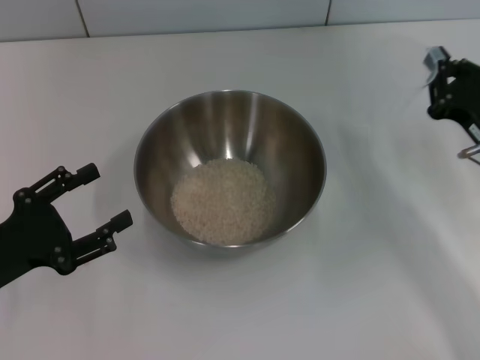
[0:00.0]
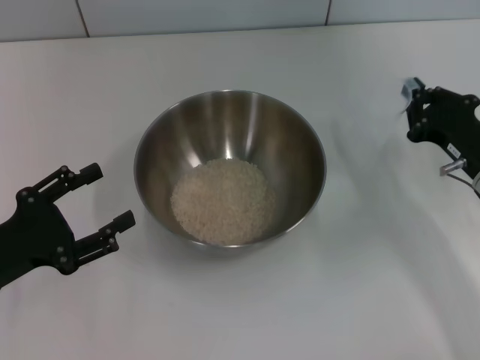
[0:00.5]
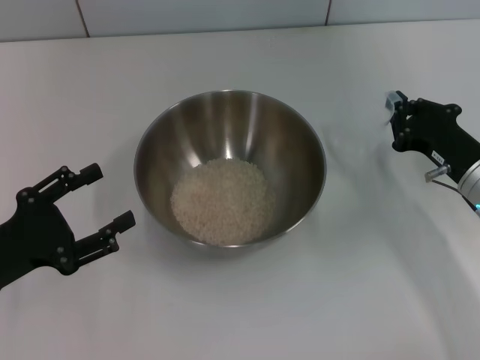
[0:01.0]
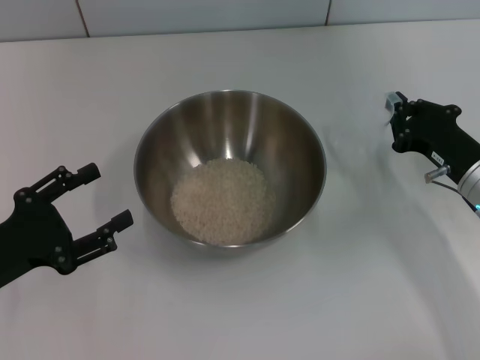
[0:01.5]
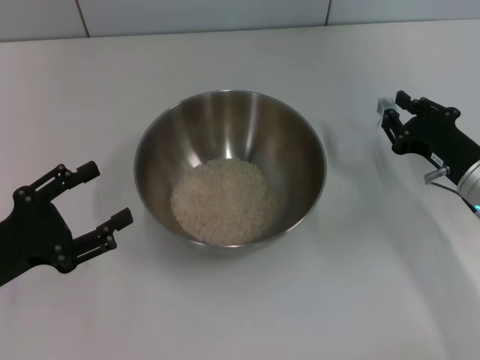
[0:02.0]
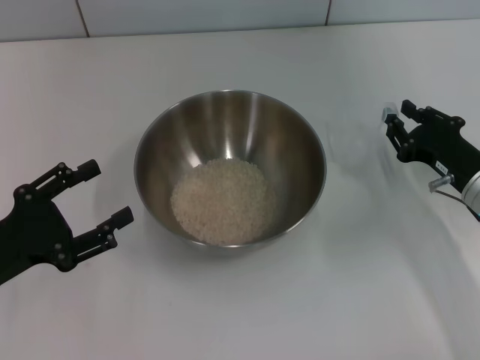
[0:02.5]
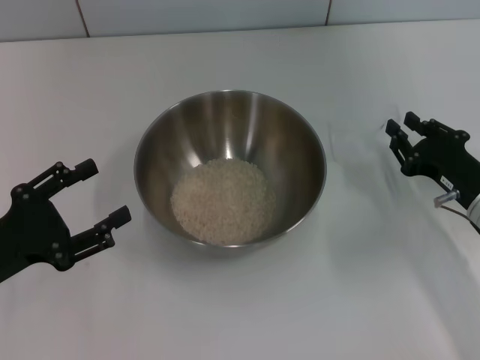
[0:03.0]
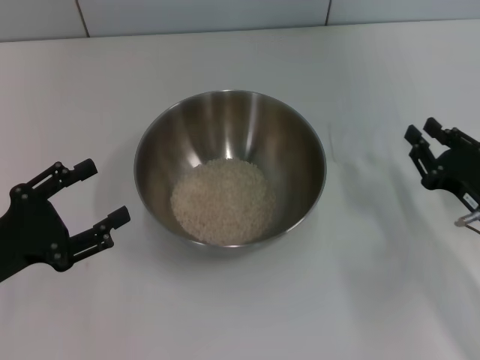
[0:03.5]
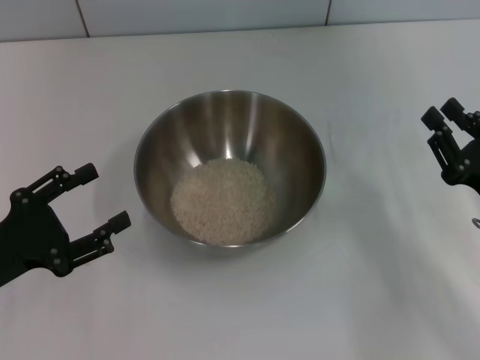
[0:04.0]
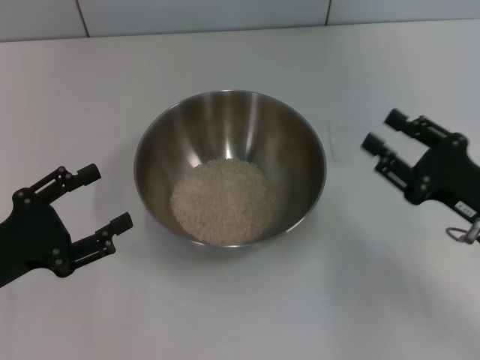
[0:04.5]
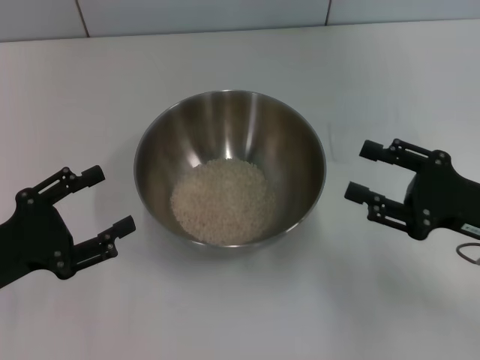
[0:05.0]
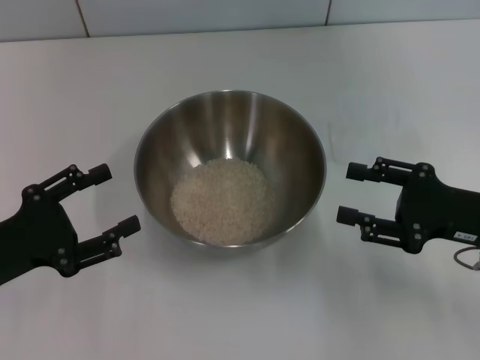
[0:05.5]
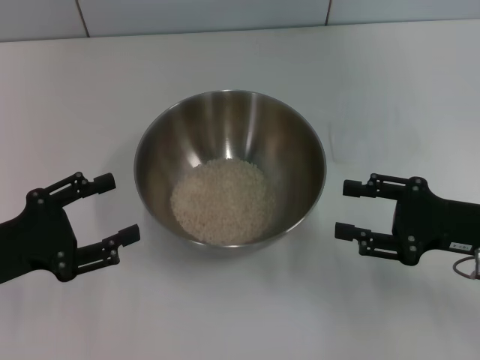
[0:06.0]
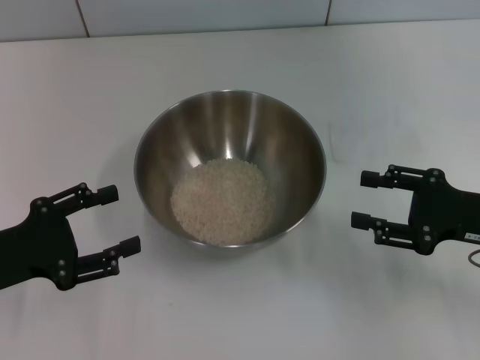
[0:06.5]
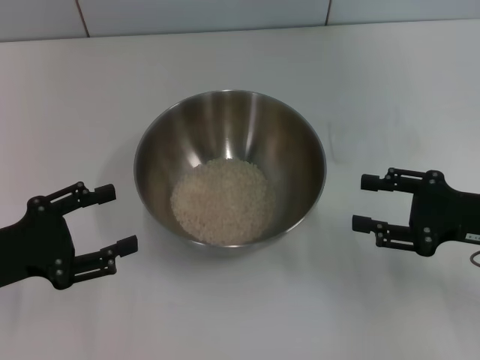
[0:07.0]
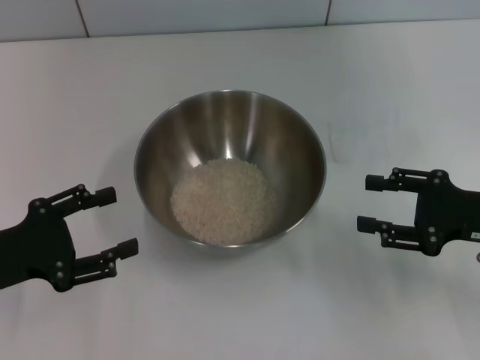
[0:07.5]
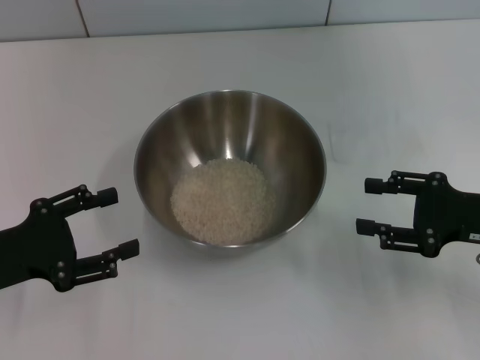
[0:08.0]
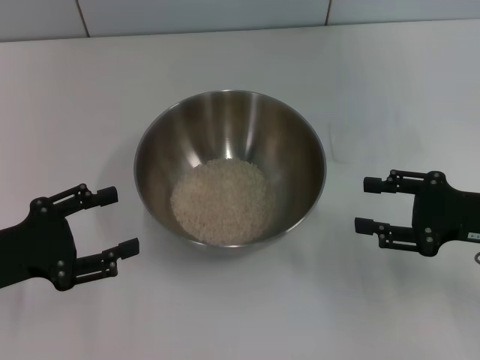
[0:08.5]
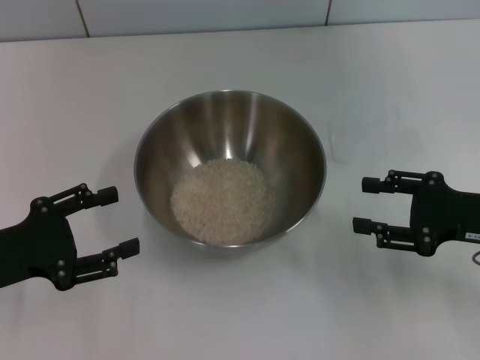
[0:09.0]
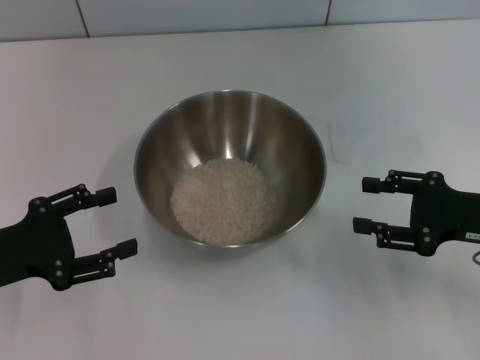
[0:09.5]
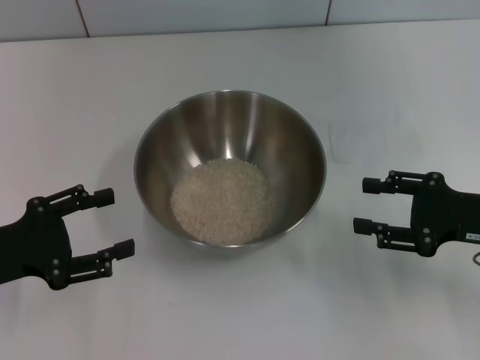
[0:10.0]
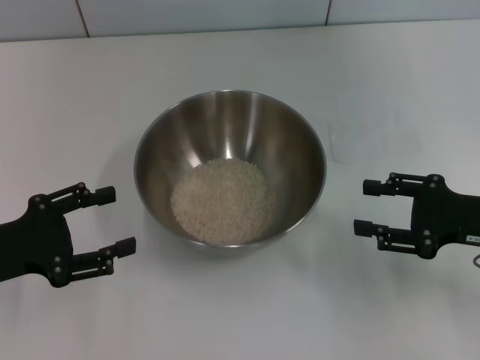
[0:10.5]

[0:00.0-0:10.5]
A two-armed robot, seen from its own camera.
Task of the whole recording: Place the bowl in the middle of the table with one hand and pour the rice from the grain cup into it with the other hand.
Step, 0:00.0 to 0:05.5: Place the cup on the table with the right gripper.
0:00.0 to 0:02.0: There are only small adjustments of the grippers.
0:02.0 to 0:04.0: The right gripper shifts about 10 cm backward.
0:04.0 to 0:06.5: The right gripper opens.
0:06.5 to 0:08.5: The grippers stay close to where they were, moving slightly.
0:08.5 to 0:10.5: The two grippers keep their place.

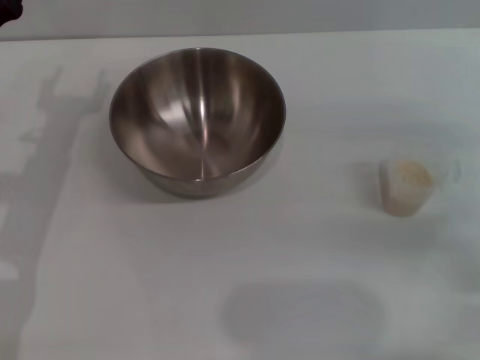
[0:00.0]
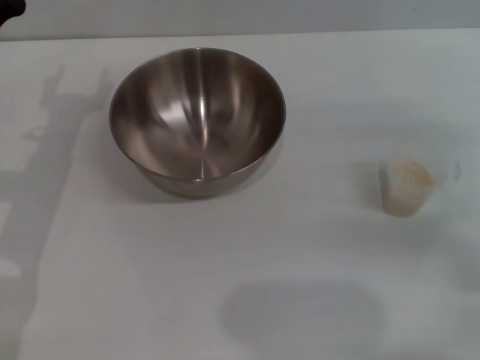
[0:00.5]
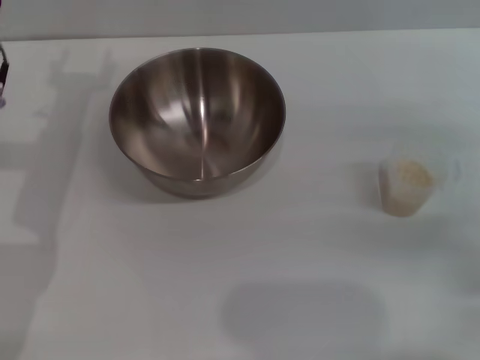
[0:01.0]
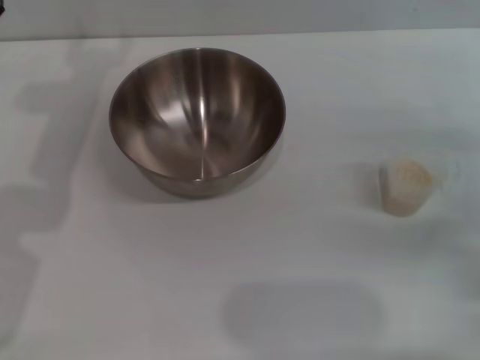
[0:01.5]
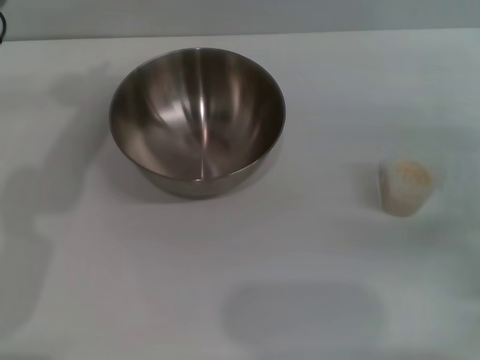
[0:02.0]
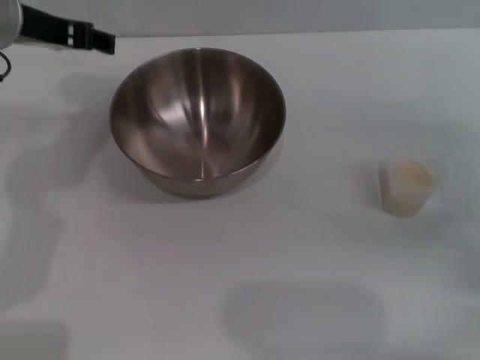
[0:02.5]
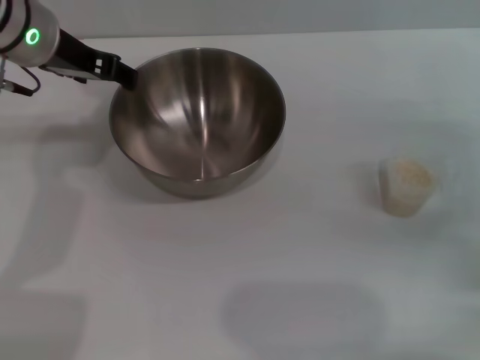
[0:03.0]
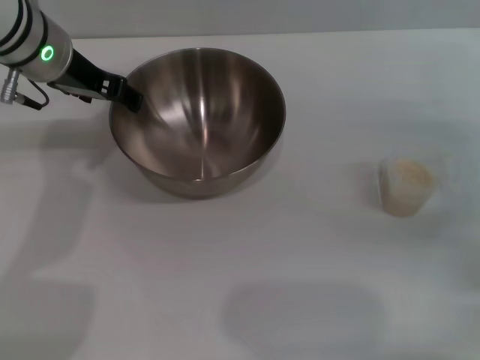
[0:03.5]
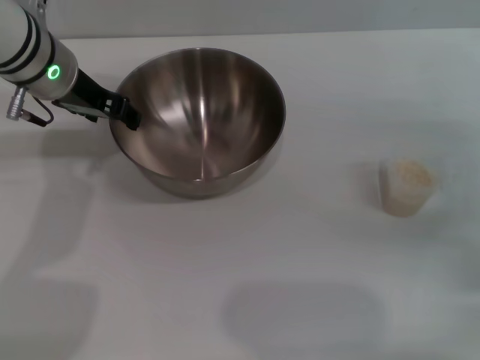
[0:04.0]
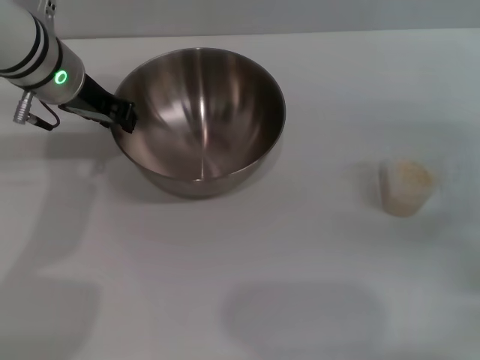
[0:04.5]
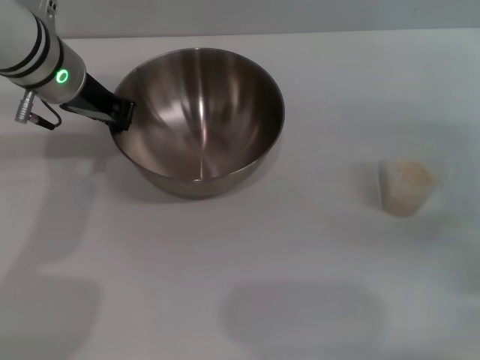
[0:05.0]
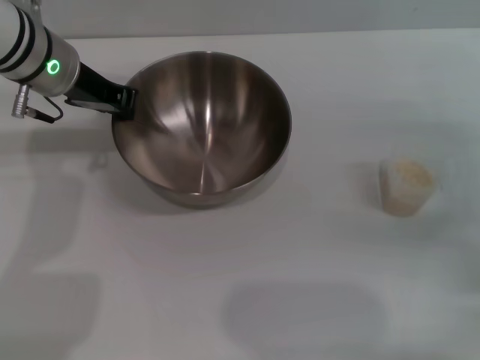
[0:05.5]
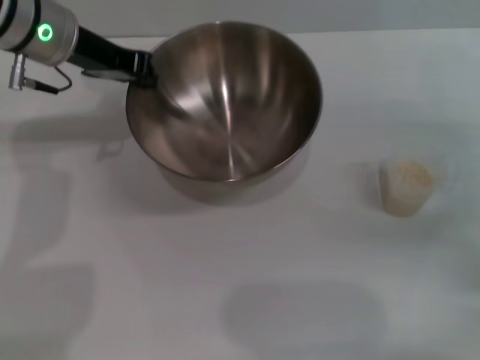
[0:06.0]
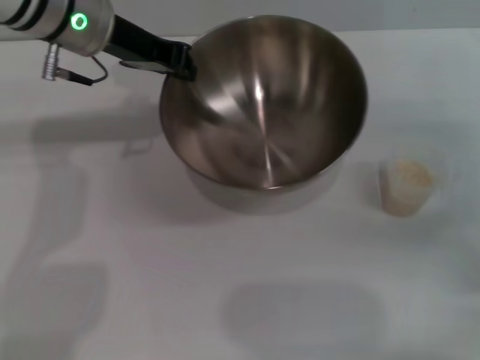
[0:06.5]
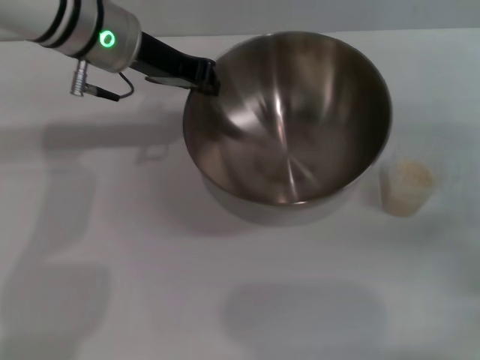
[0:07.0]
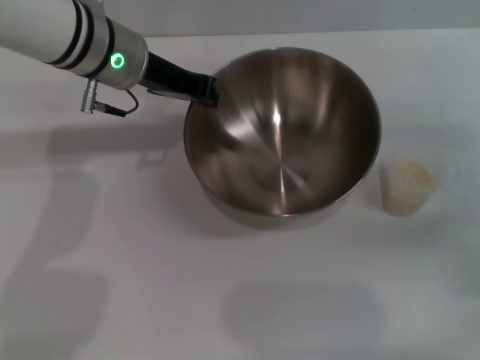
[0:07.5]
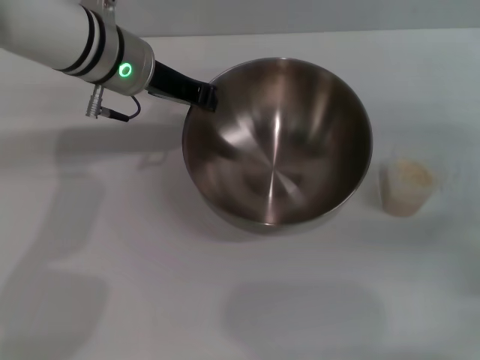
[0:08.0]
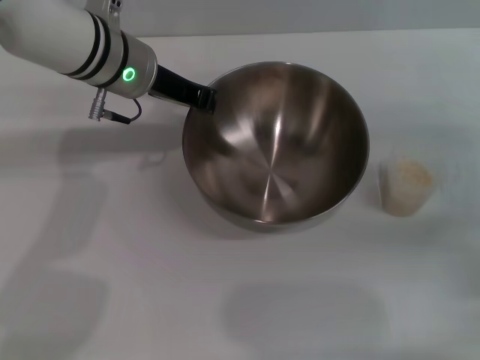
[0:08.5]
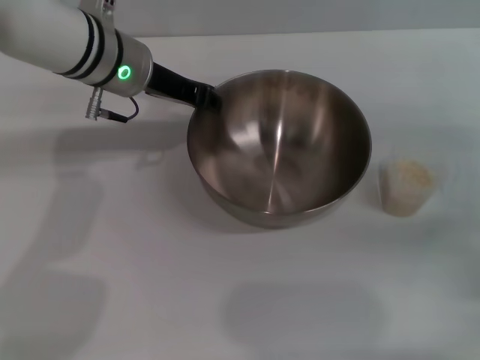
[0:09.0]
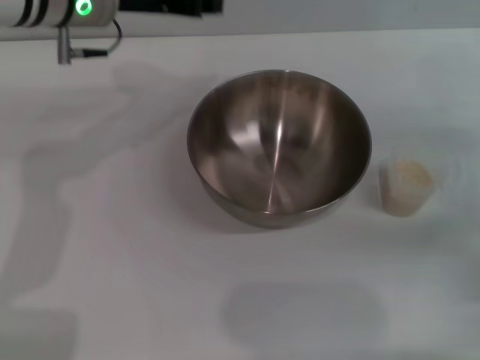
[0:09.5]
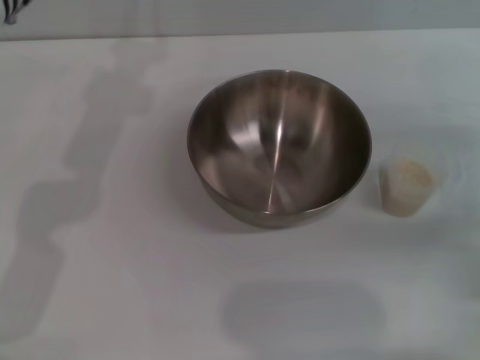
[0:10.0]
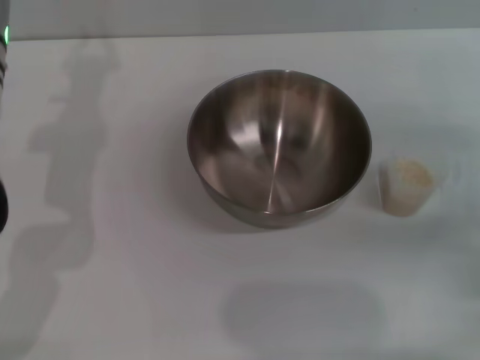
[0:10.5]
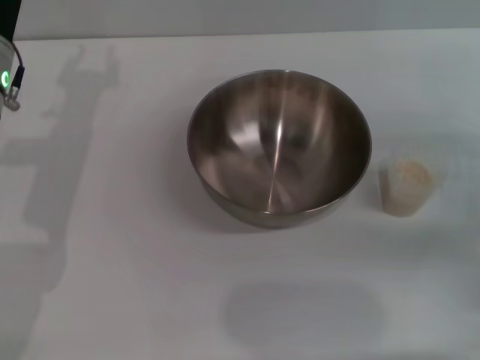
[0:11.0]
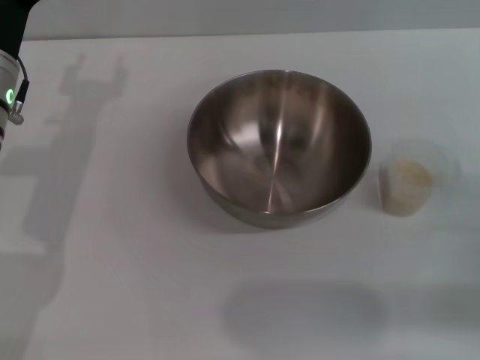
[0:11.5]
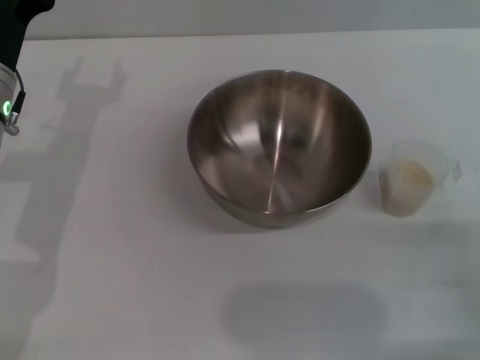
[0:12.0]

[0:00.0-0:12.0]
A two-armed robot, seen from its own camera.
Task of the whole recording: Place the bowl in the middle of the table with one hand and pour the rice from the grain cup into it with the other hand.
Step, 0:00.0 to 0:06.0: Pick up the bowl with the left gripper.
Step, 0:06.5 to 0:09.0: Place the bowl in the center of view with the left gripper.
0:02.0 to 0:04.0: The left gripper is displaced downward by some 5 cm.
0:04.0 to 0:06.0: The left gripper closes.
0:06.0 to 0:08.0: The left gripper heads to the right, covering some 5 cm.
0:08.0 to 0:10.0: The left gripper is displaced to the left and upward by some 10 cm.
0:10.0 to 0:12.0: The left gripper is displaced downward and backward by approximately 10 cm, and opens up.

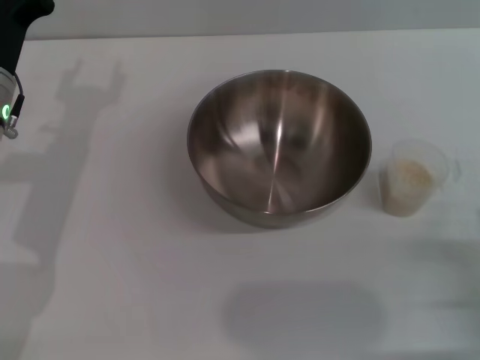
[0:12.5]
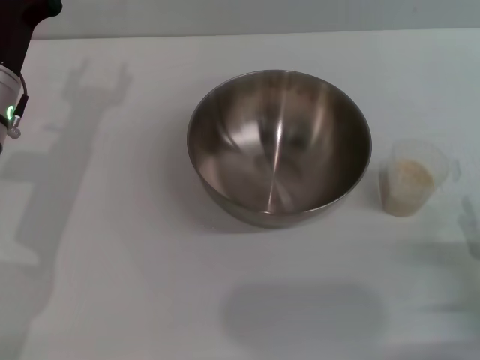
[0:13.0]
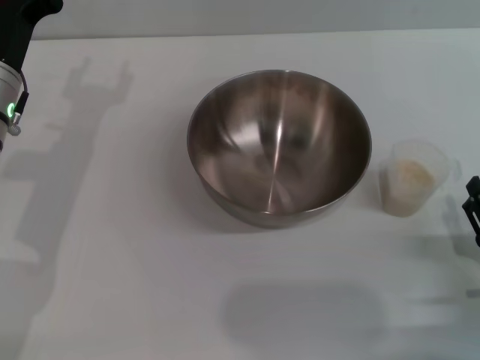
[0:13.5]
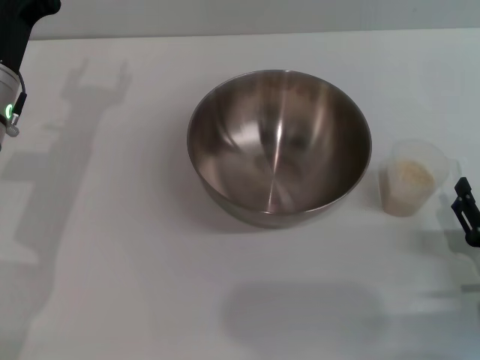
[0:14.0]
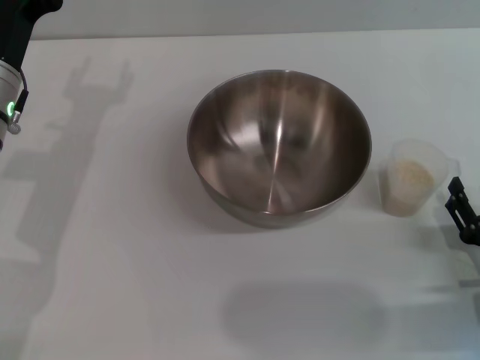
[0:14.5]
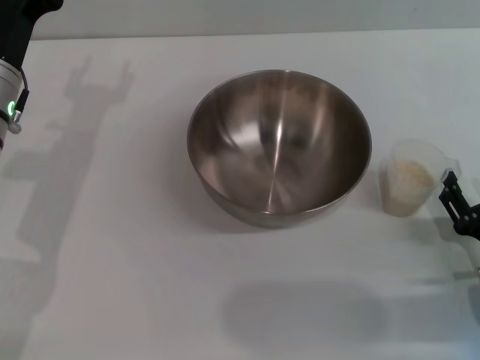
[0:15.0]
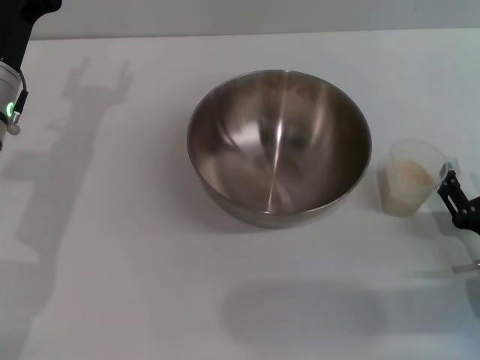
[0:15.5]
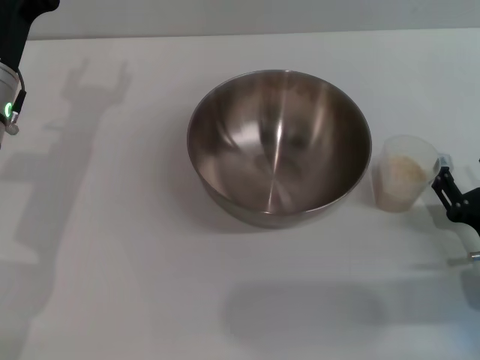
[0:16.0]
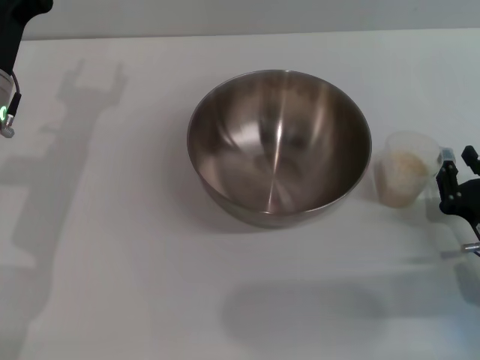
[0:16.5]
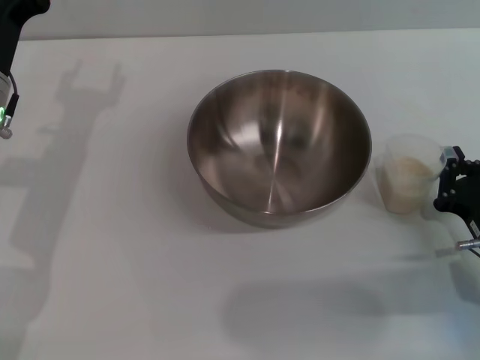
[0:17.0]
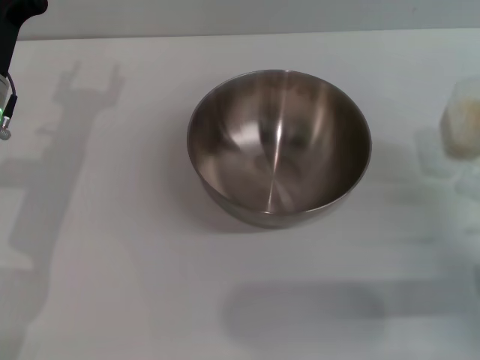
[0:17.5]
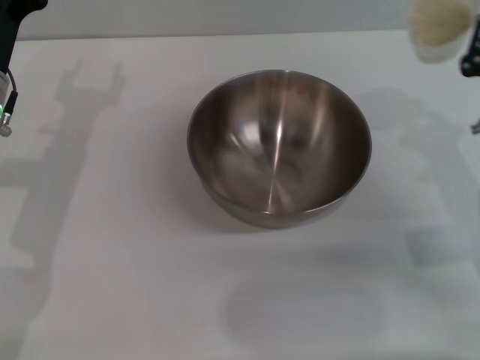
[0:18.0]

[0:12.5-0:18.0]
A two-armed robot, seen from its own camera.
Task of the whole recording: Place the bowl in the middle of the table with one hand and pour the rice from the grain cup into it with the other hand.
Step, 0:12.5 to 0:17.0: Pick up the cup with rice in it with the right gripper.
0:12.5 to 0:14.5: There are only small adjustments of the grippers.
0:14.5 to 0:16.0: The grippers make only small movements.
0:16.0 to 0:18.0: The right gripper is displaced upward and forward by about 10 cm, and closes.
